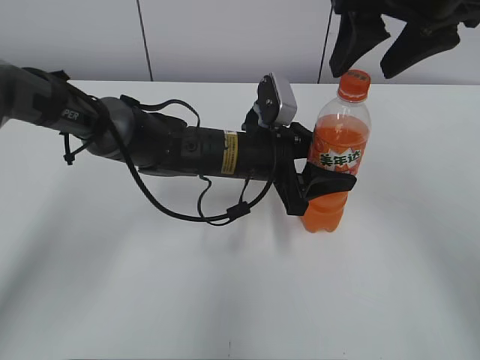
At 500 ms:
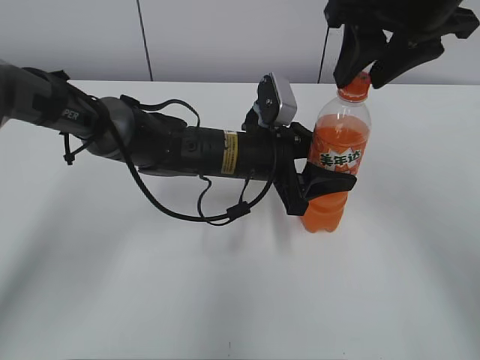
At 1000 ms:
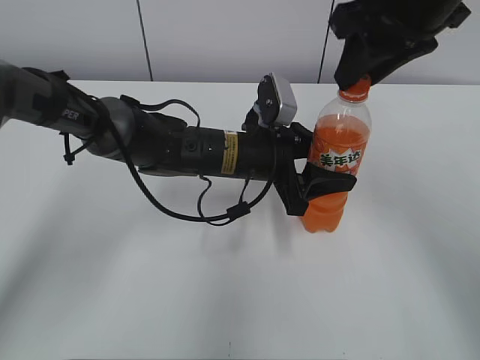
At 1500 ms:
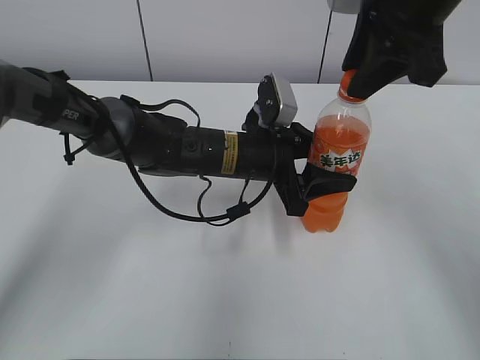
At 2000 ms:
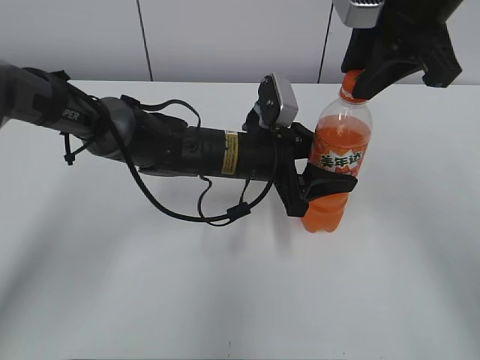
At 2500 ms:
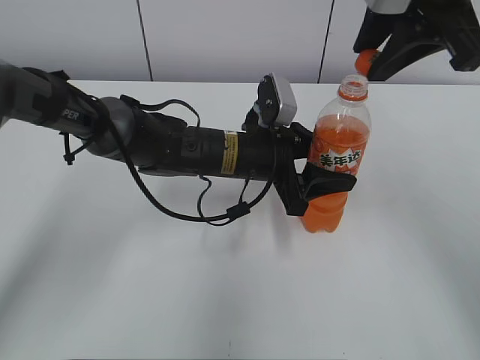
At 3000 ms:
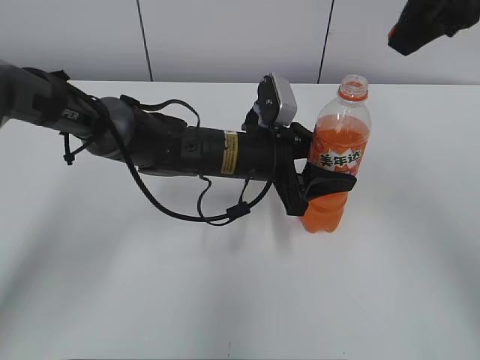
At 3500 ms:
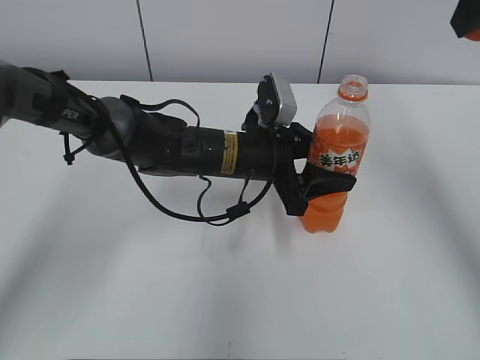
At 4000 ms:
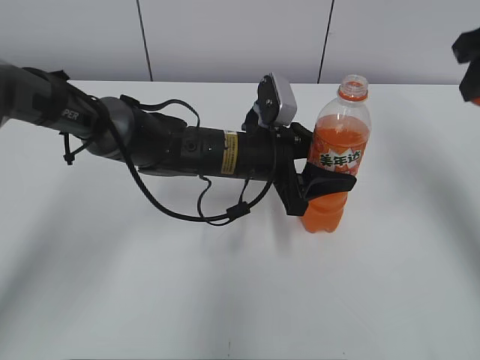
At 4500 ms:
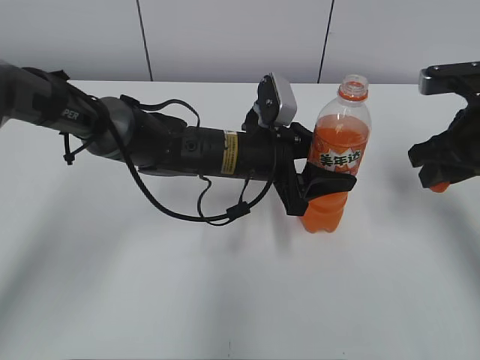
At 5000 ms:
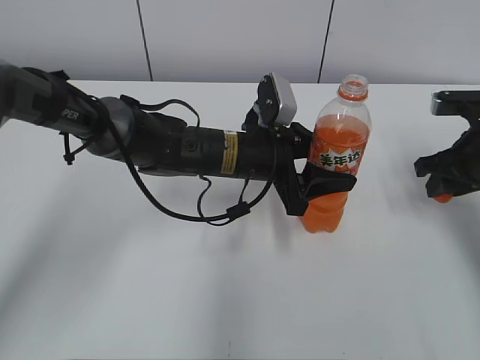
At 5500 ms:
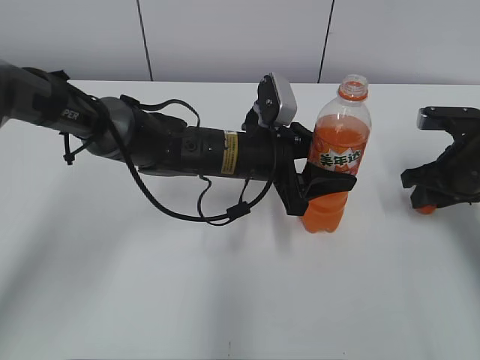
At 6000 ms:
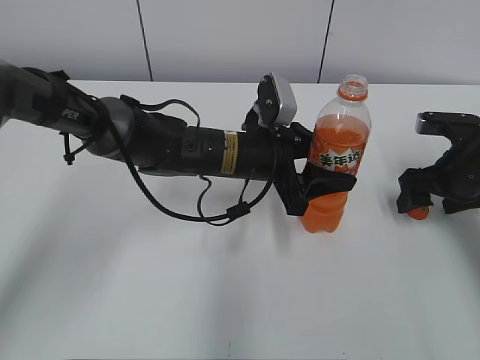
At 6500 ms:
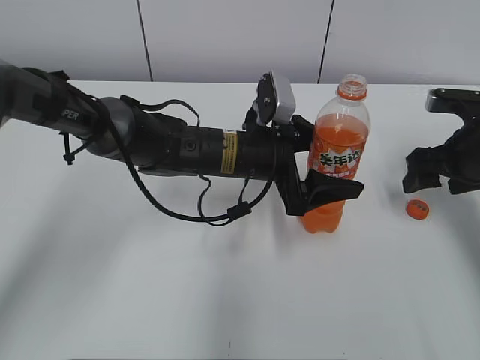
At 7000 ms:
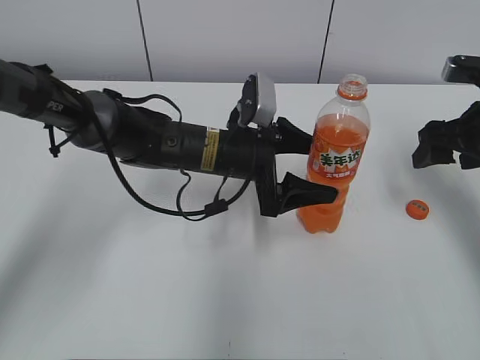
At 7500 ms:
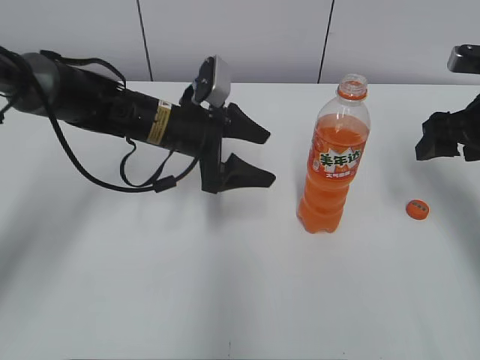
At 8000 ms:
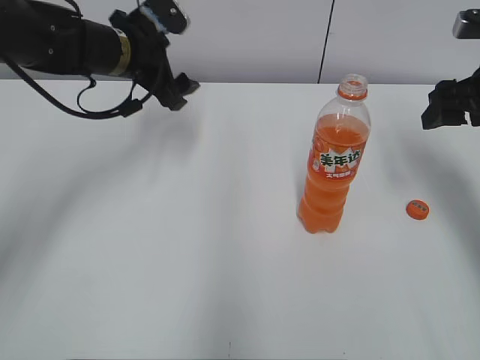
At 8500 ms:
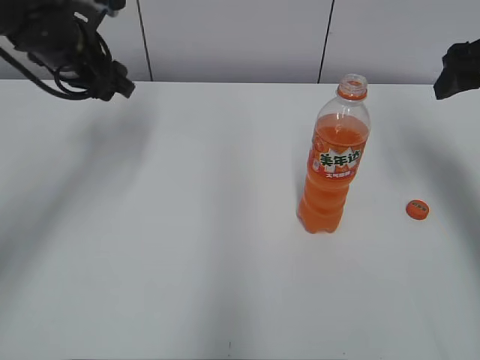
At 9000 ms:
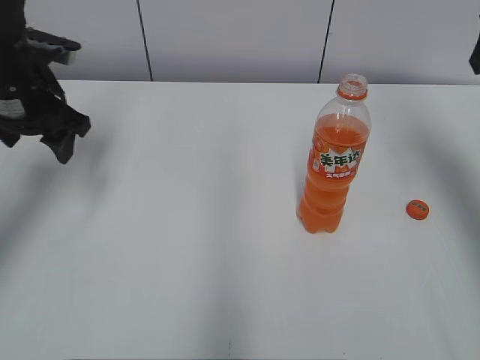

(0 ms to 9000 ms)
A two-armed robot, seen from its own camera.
Step, 2500 ms - 5500 ms: Place the bottle cap on the right.
0 ms - 2000 ms: The right gripper closes up.
2000 ms - 4500 ms: The right gripper heads downward and to the right, covering about 15 cm.
4500 ms - 7000 ms: The right gripper reaches about 10 cm downward, then returns, and opens its fingers. Meanwhile the left gripper opens.
7000 ms - 9000 ms: The right gripper goes some 15 cm upward; the left gripper moves to the left and upward, some 25 cm.

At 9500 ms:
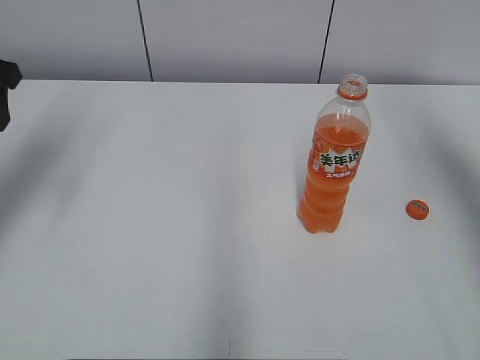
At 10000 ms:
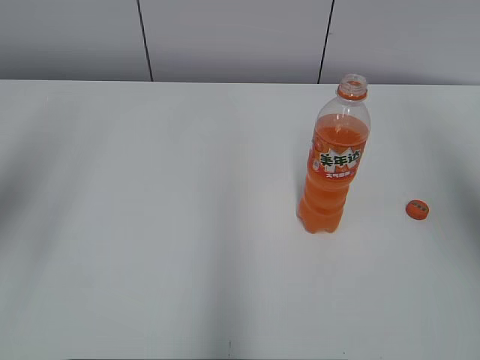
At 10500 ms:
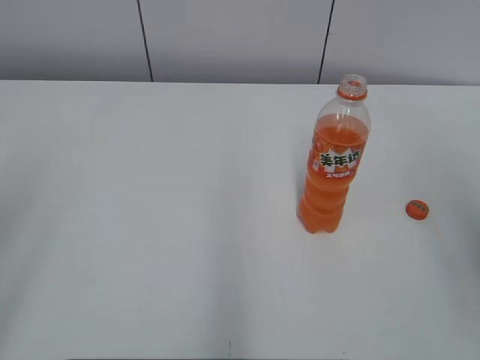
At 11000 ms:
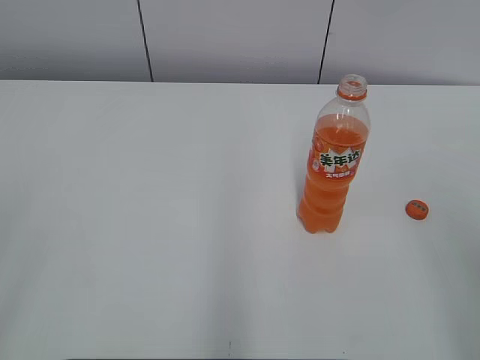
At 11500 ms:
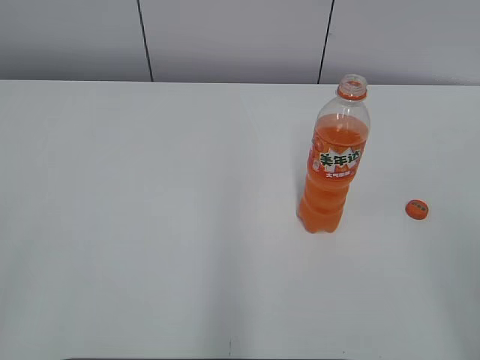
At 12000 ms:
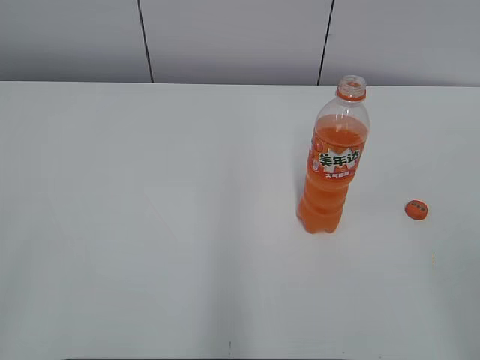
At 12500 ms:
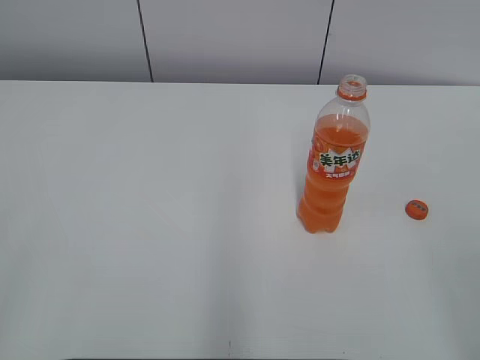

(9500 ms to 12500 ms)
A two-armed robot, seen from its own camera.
9500 ms - 11000 ms: The grippers both shift backward by approximately 30 cm.

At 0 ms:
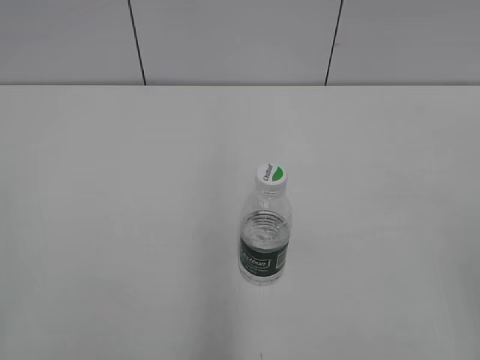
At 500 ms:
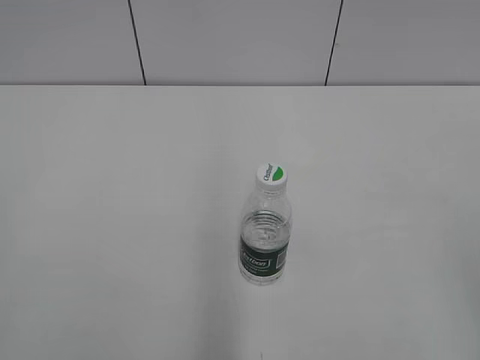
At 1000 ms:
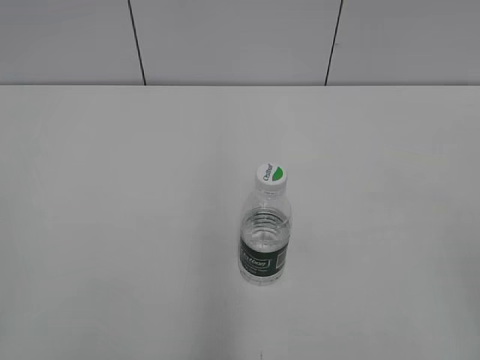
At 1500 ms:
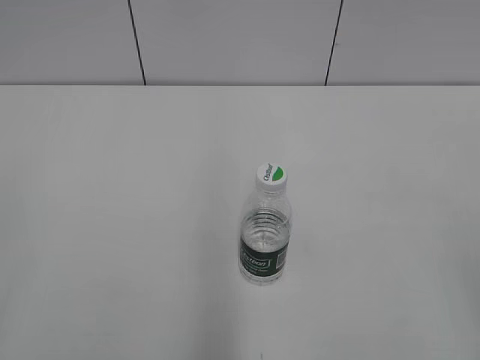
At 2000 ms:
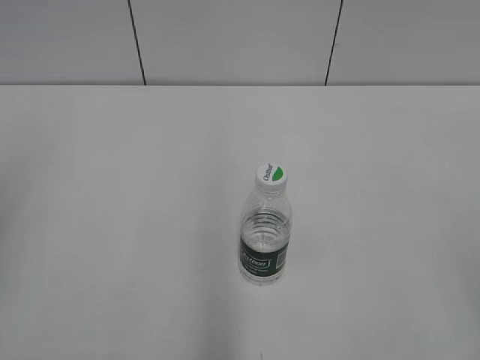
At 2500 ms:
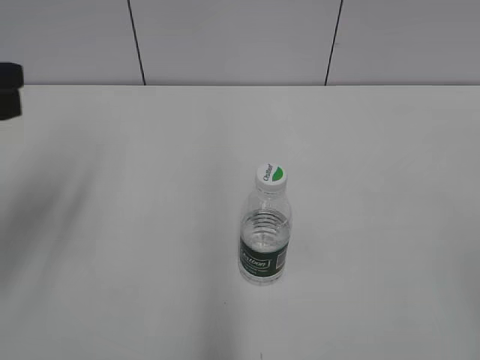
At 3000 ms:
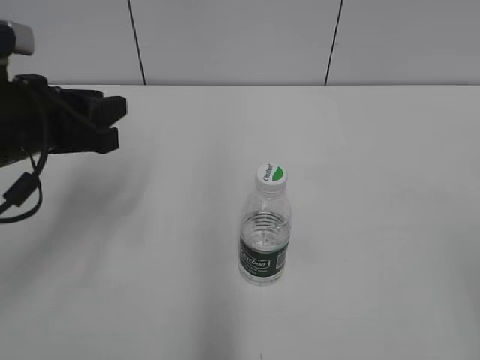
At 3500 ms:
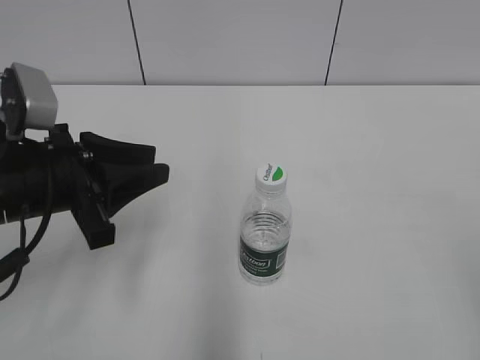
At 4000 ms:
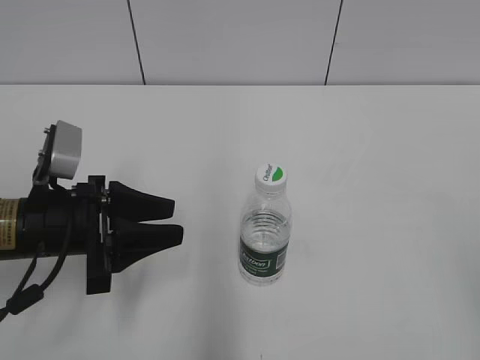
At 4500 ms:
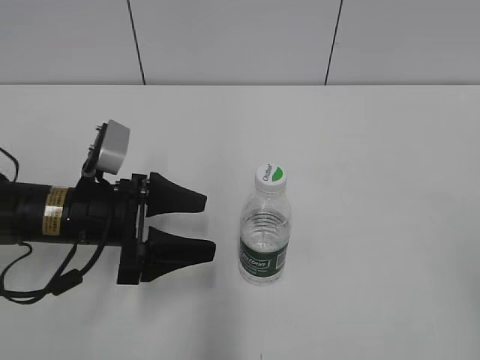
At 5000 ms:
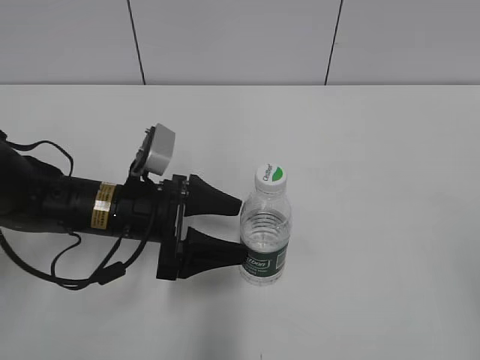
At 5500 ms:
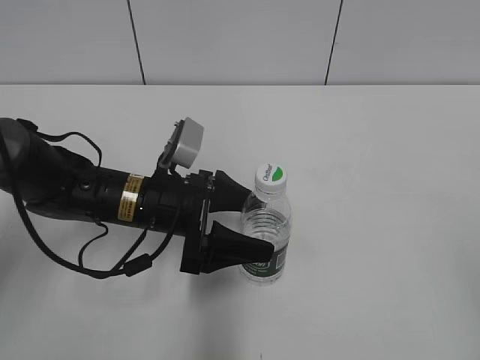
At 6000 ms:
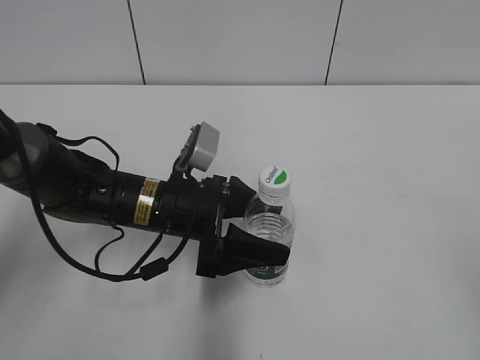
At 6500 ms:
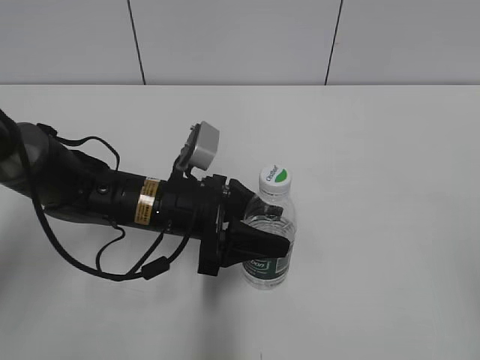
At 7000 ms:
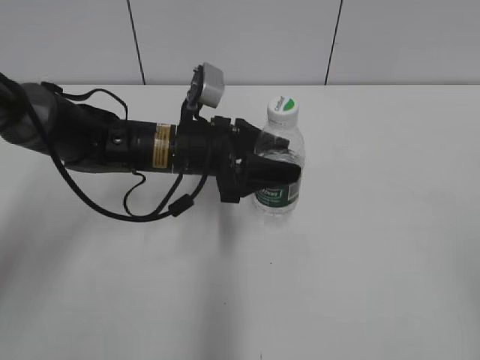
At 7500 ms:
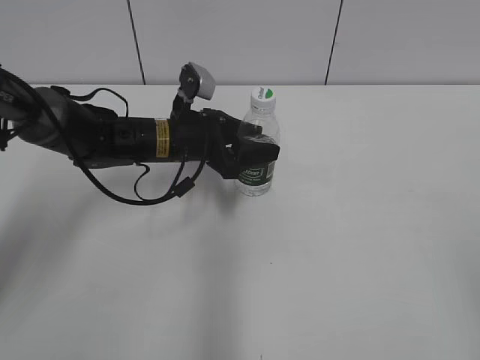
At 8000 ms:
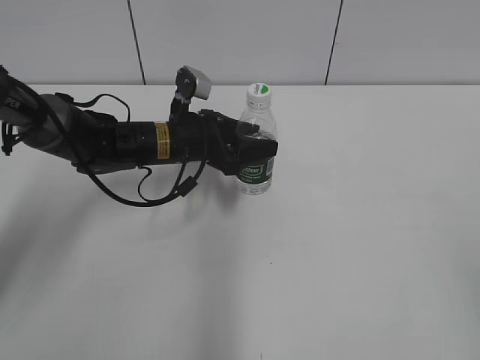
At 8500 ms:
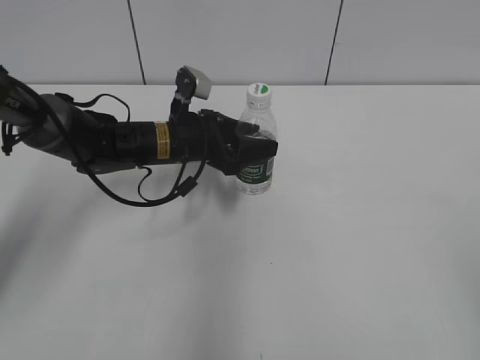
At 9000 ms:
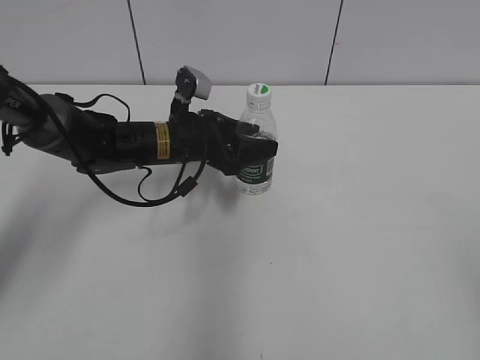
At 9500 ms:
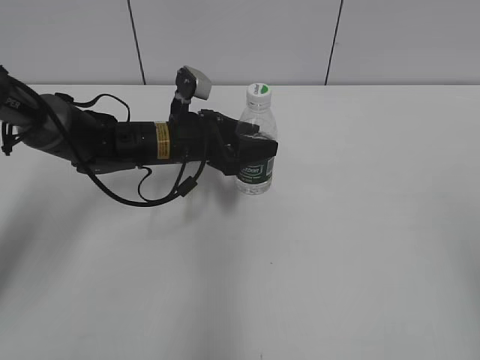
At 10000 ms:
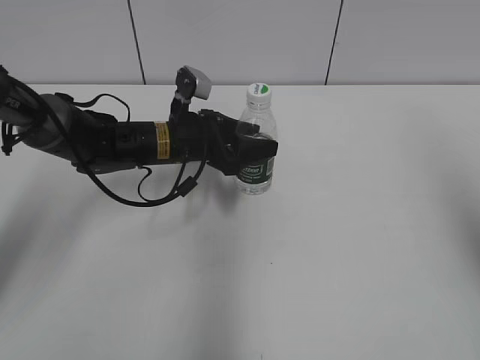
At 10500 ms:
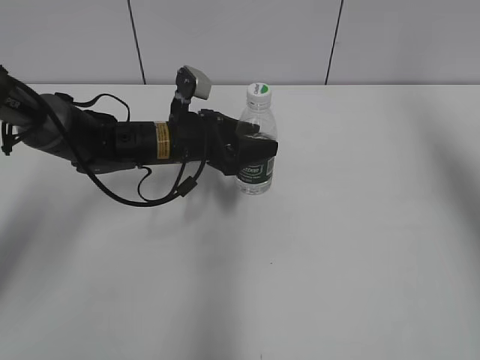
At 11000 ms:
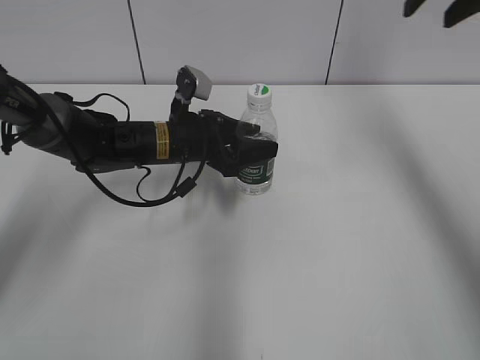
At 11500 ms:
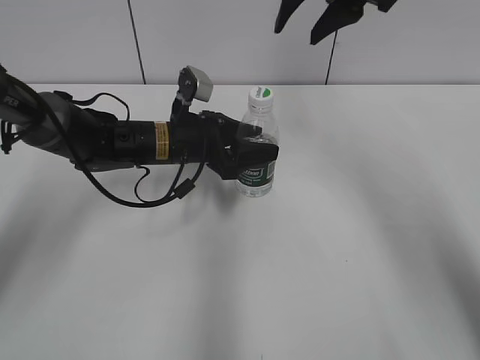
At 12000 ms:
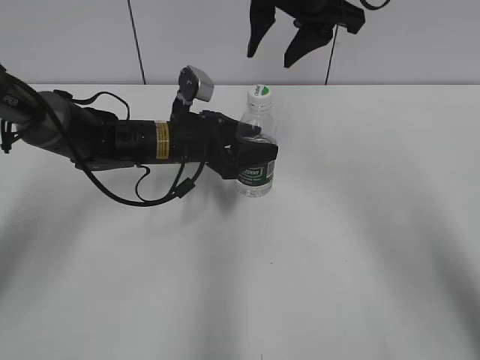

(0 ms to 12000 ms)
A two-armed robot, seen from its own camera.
Step, 0 ms - 6000 ms: Grasp the bottle and move it to the center of the table with the left gripper.
Step, 6500 ms - 8000 ms: Lift the bottle and move it to the center of the table with the left gripper.
2000 ms - 4000 ms: The left gripper shifts about 30 cm downward, forward and to the right.
4000 ms - 6000 ms: The left gripper heads to the right and forward, covering some 10 cm, and opens.
6000 ms - 8000 ms: The left gripper shifts approximately 10 cm forward, and closes up.
8000 ms - 10000 ms: The right gripper is displaced forward and upward by roughly 20 cm.
10000 ms - 12000 ms: The right gripper moves to the left and forward, about 35 cm.

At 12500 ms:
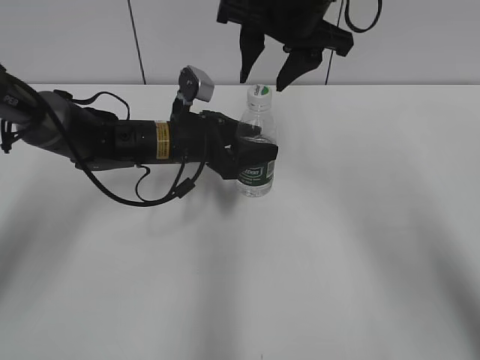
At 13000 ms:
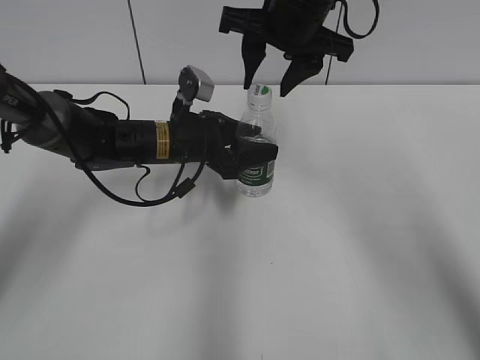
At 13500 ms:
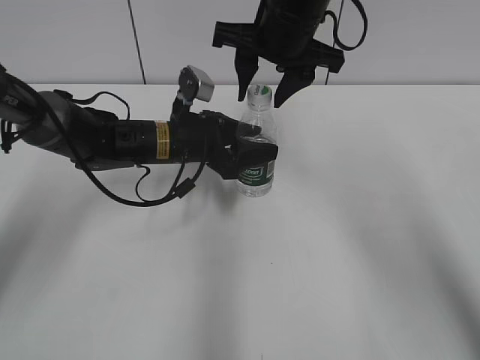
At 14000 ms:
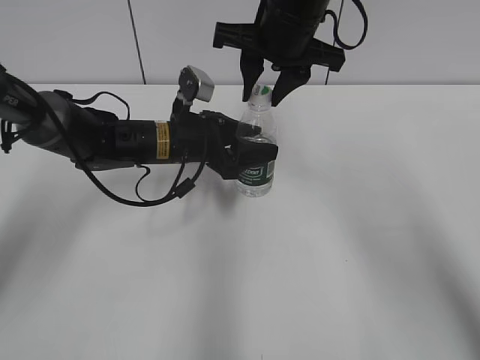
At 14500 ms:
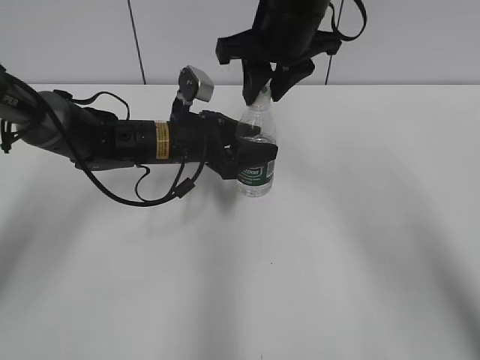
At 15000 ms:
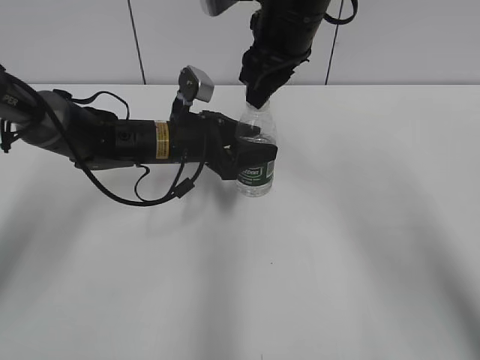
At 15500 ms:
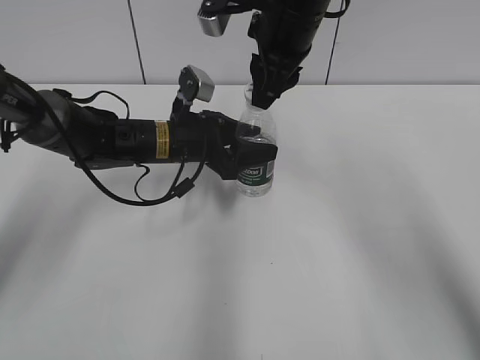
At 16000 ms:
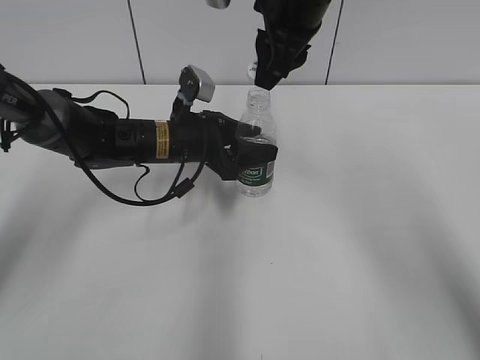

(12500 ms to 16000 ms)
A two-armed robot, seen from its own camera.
12500 ms - 14500 ms: The right gripper closes up.
